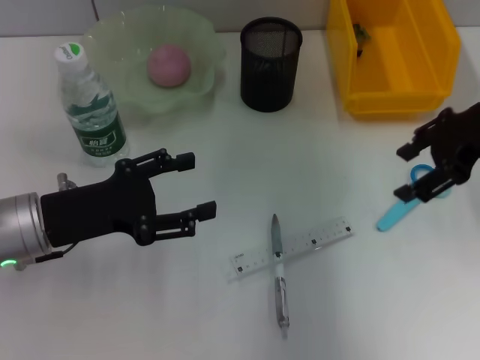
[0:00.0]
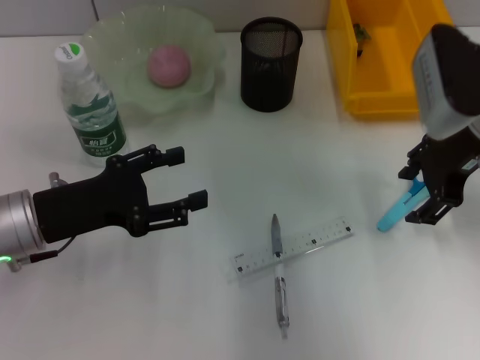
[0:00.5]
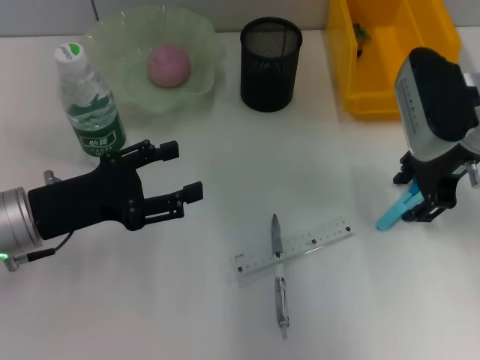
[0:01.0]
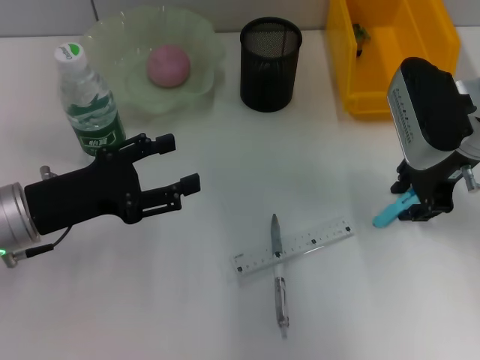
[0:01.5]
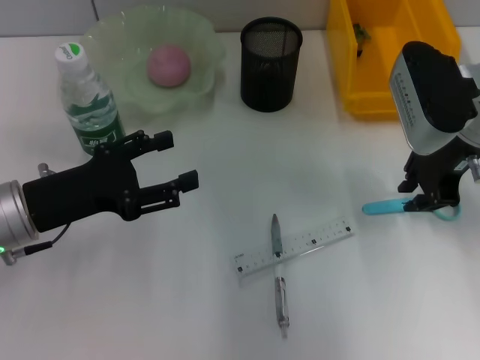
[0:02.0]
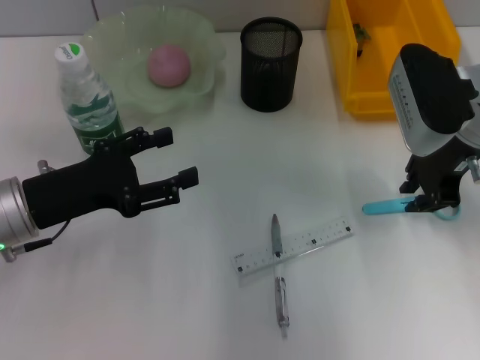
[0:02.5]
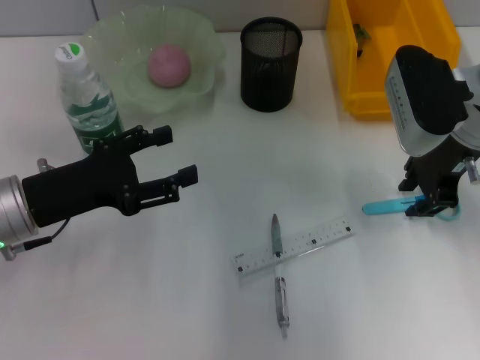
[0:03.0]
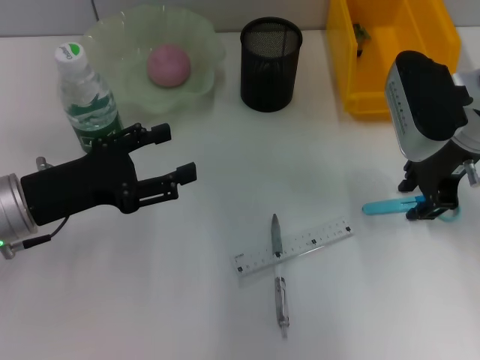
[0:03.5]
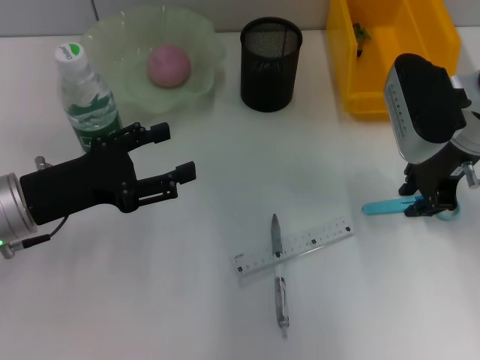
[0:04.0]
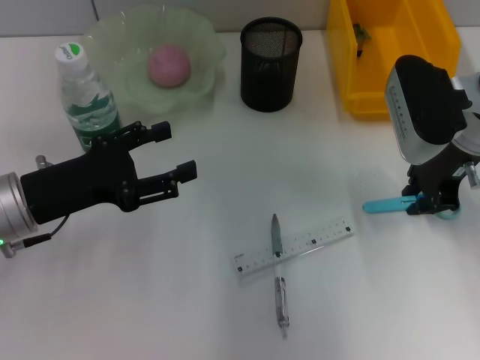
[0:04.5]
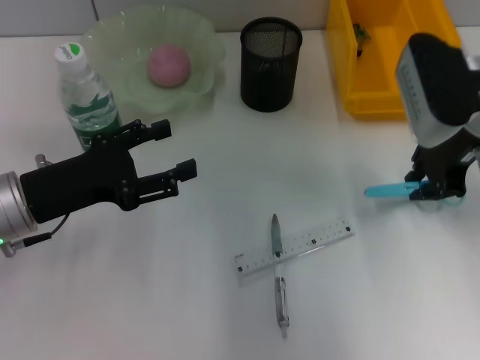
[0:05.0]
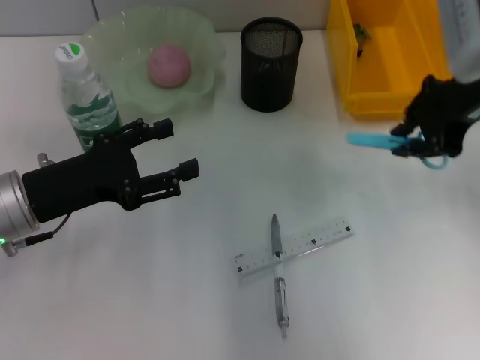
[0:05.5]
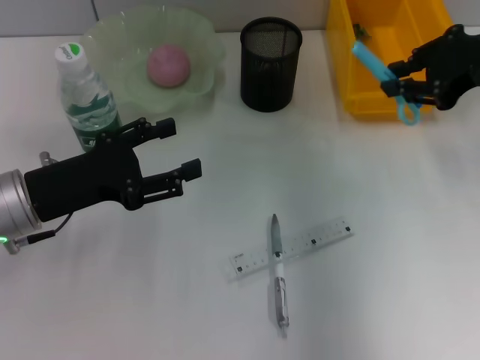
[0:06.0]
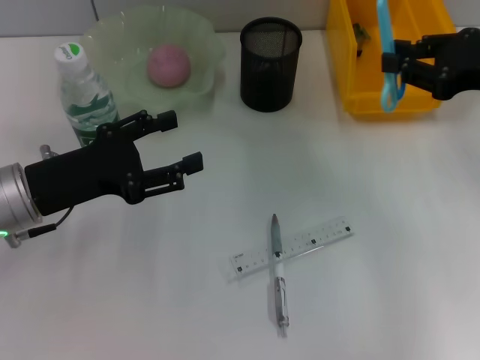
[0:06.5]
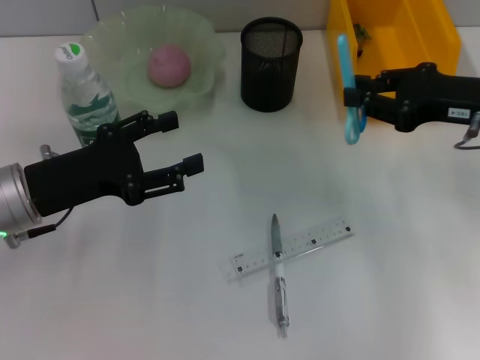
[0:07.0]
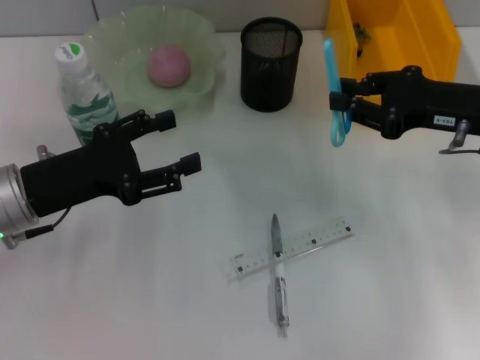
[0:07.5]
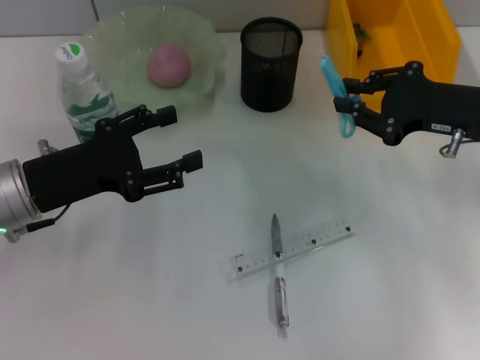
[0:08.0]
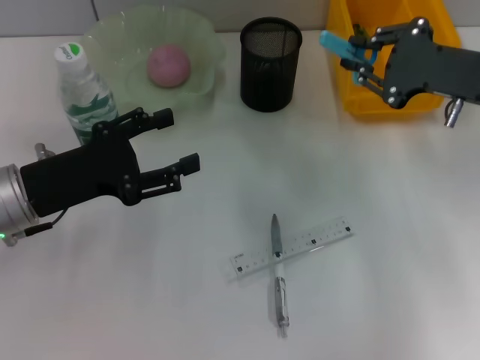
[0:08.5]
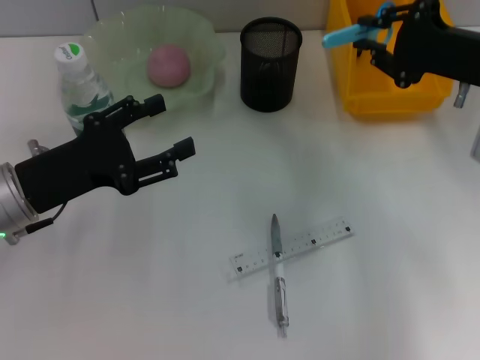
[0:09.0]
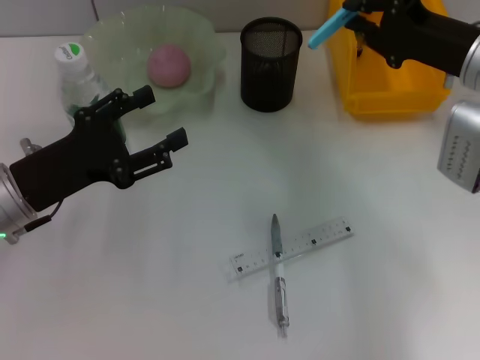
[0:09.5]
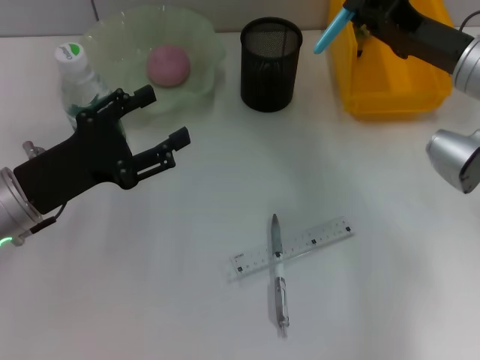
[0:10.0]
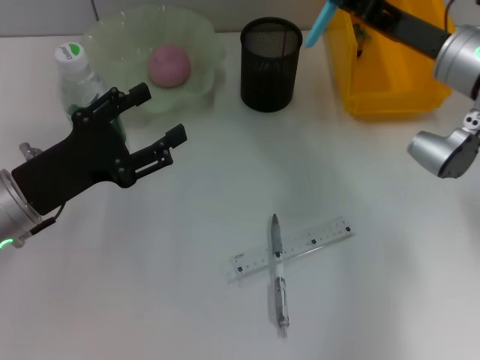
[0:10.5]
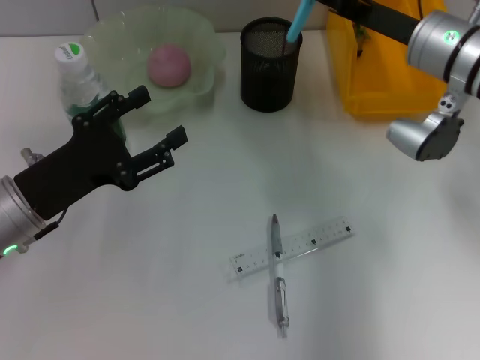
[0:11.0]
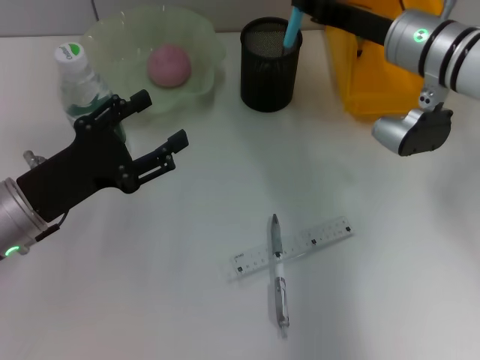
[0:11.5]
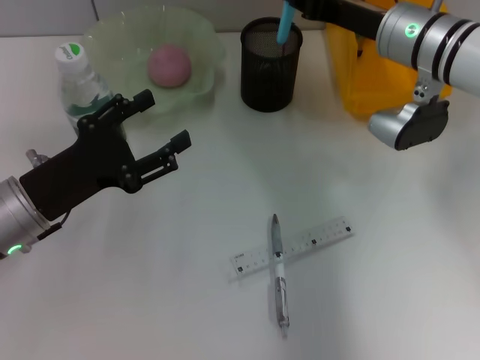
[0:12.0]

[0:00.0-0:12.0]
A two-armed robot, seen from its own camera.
Step, 0.0 to 4.5 s: Grab the blue scissors with the right hand.
0.0 to 2.0 s: The right gripper changes place by about 5 cm, and closes.
2.0 to 4.0 s: Both grippers stay about where they are.
4.0 to 6.0 s: The right gripper goes approximately 10 cm upward and to the right.
6.0 to 8.0 s: The right gripper moves downward, about 10 cm.
10.0 to 12.0 s: The right gripper heads to the left, covering some 5 cm.

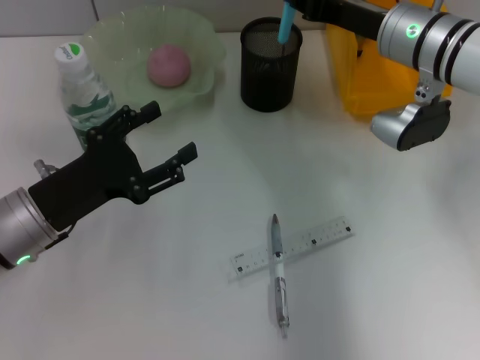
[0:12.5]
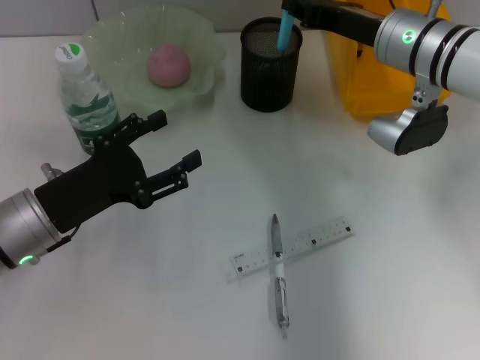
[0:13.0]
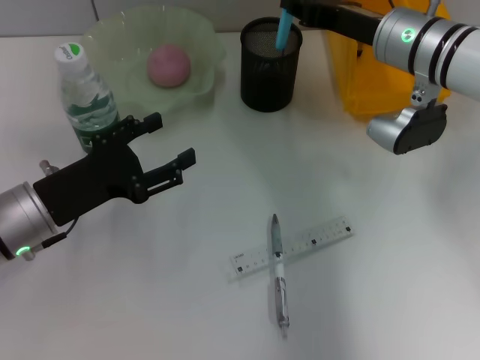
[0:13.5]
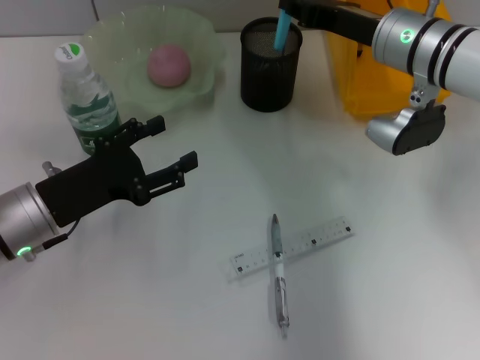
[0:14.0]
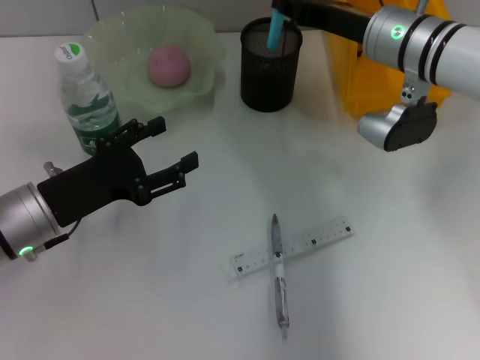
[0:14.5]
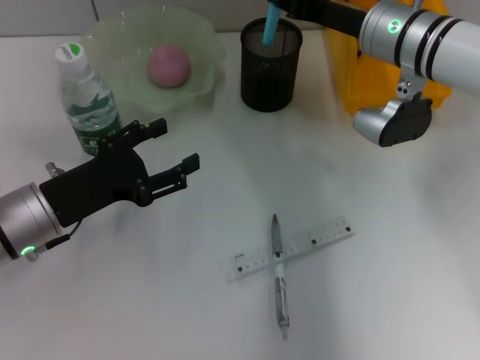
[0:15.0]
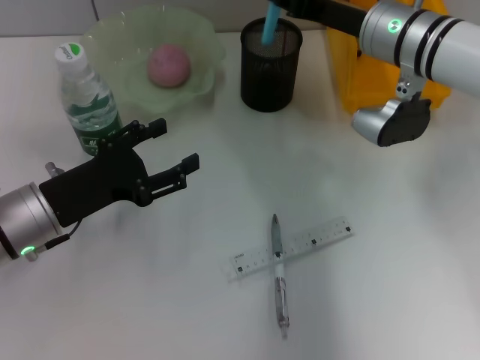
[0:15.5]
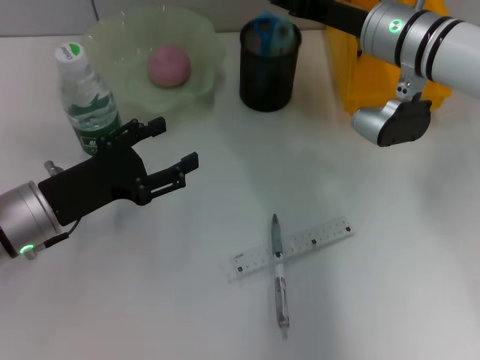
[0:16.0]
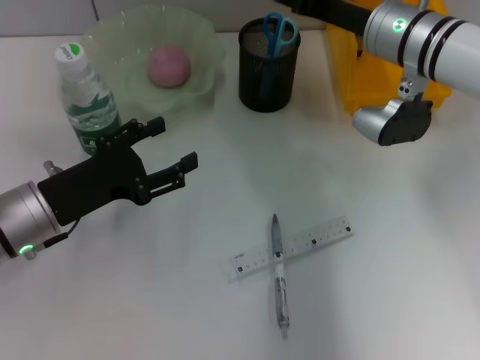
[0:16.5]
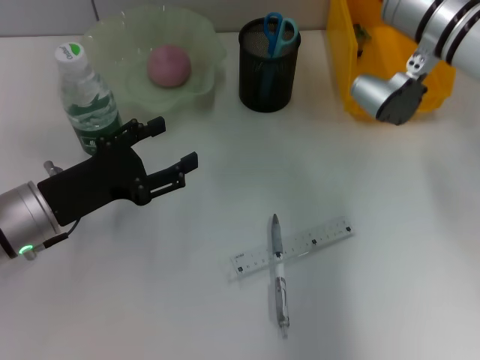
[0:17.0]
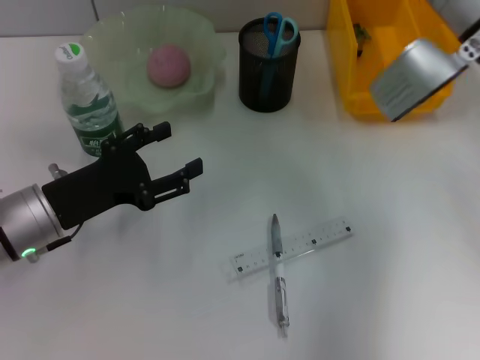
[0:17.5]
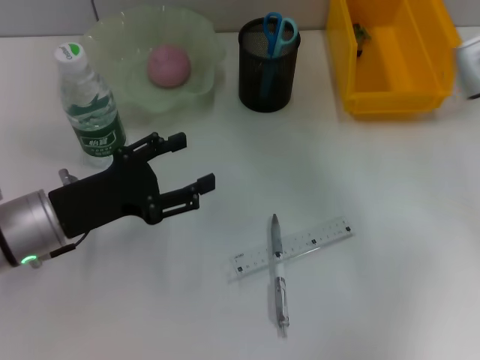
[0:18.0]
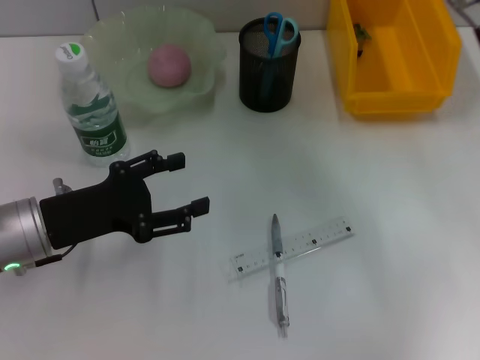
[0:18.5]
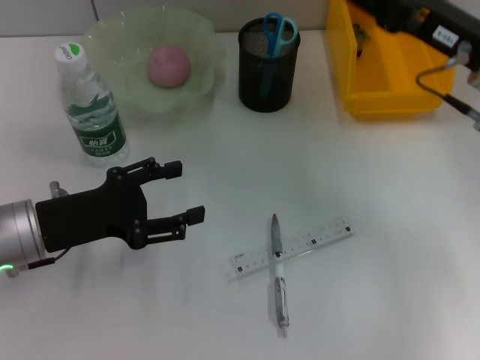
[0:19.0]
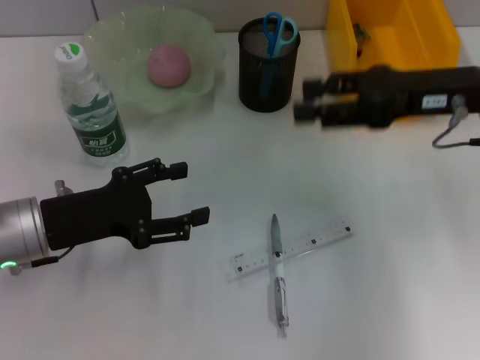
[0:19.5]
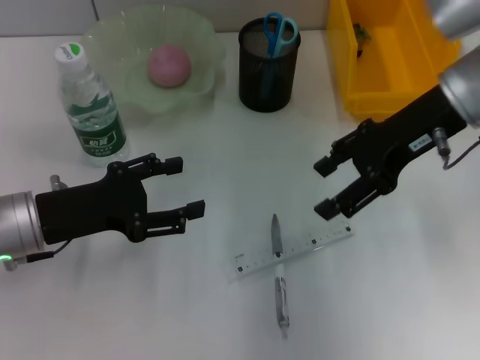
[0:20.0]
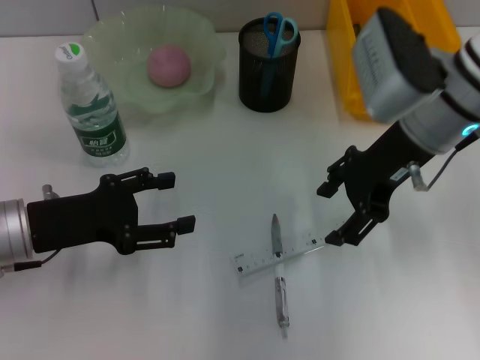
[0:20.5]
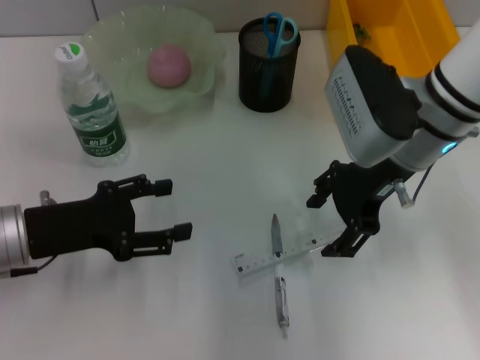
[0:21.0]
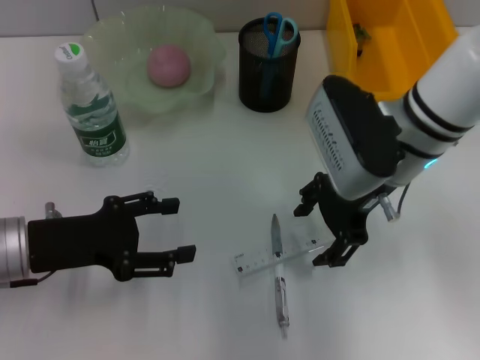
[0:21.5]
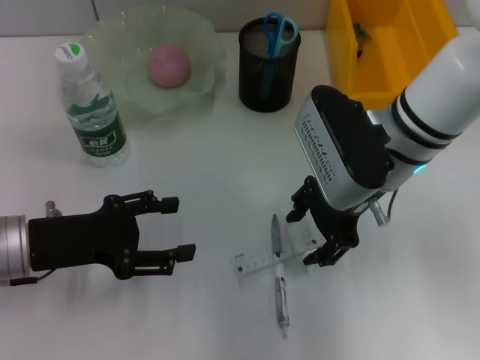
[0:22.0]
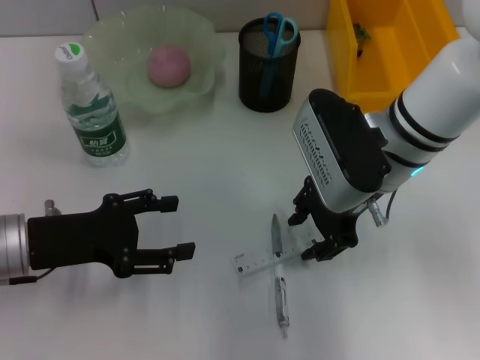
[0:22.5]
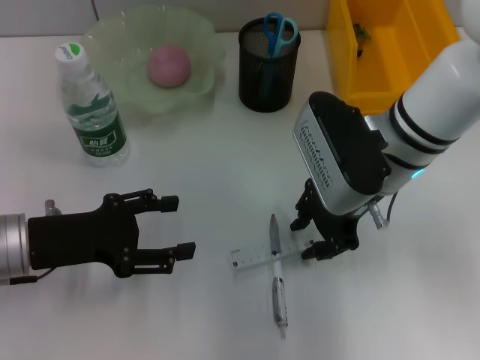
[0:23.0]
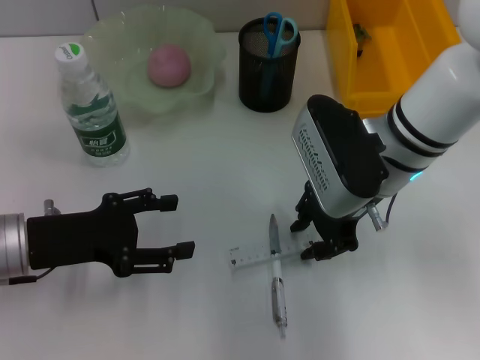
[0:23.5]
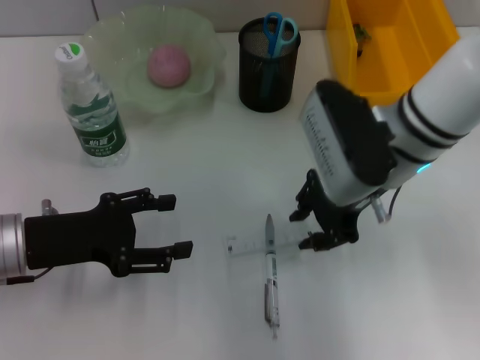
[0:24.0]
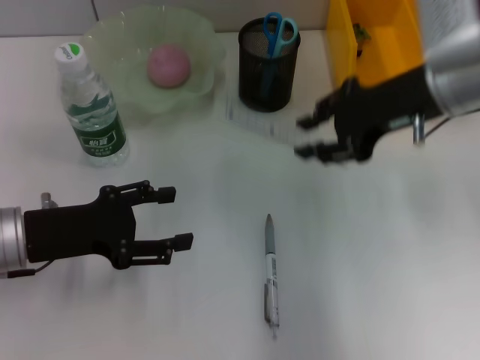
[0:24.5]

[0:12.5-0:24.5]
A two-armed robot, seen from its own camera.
Step, 12.5 to 16.5 s: Place the blue scissors into the pen holder with the right hand.
Step, 17.0 to 23.5 s: Grab the ruler with the right hand.
12.5 to 14.5 s: The grippers move only a little.
14.5 to 16.5 s: Both grippers stay about where they are.
16.5 to 18.5 s: The right gripper heads to the right and backward, covering approximately 10 cm.
18.5 to 20.5 s: The right gripper shifts about 5 cm to the left, and opens its fingers.
20.5 to 22.5 s: The right gripper changes place by about 5 cm, and closes its fingers.
22.5 to 24.5 s: The right gripper shifts roughly 10 cm to the right and upward.

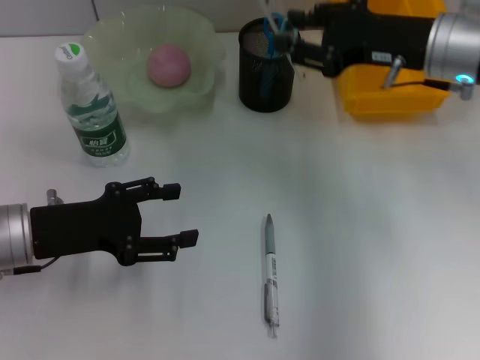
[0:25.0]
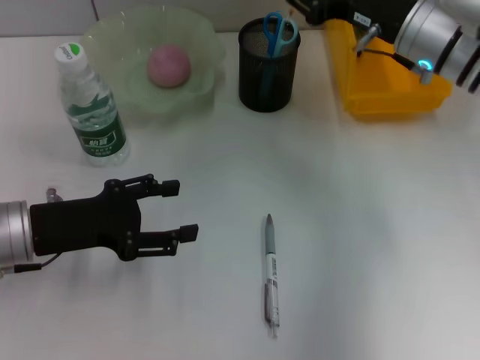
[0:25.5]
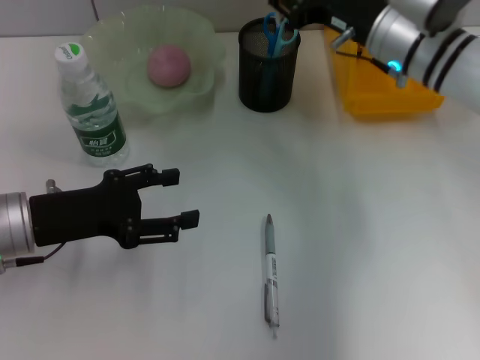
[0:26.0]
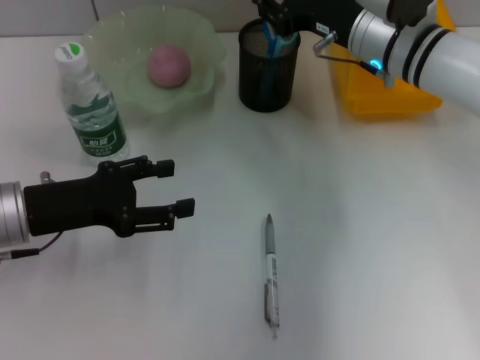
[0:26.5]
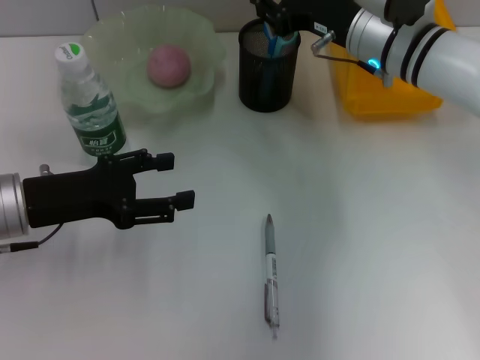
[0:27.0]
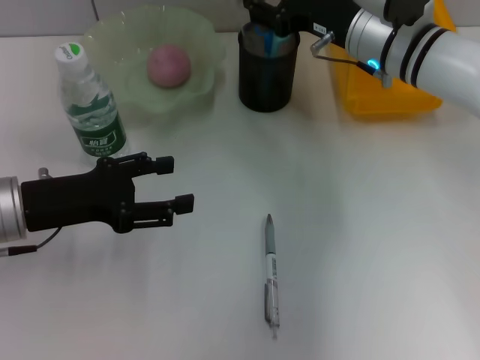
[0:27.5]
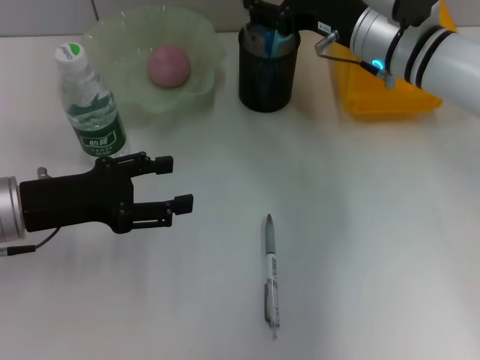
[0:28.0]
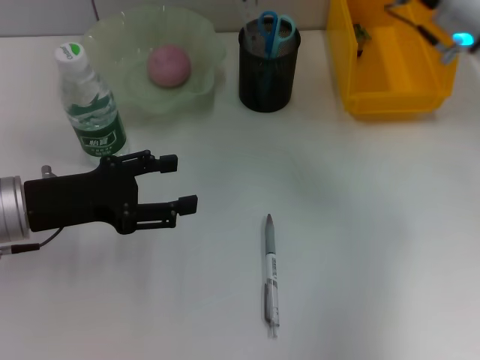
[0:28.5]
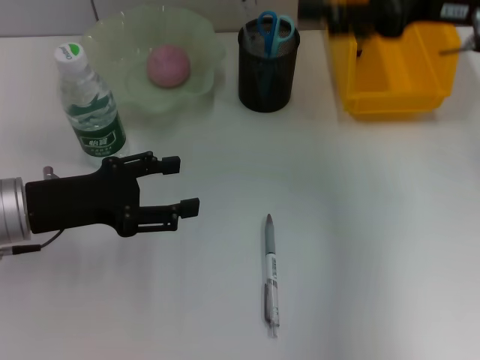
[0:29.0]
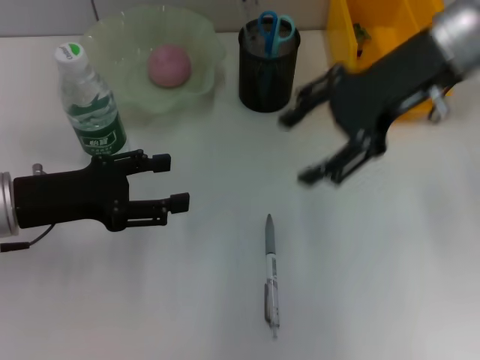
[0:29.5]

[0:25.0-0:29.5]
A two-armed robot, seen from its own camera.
Step, 25.0 to 28.0 s: Place the ruler into the pen holder with the right hand.
25.0 to 27.0 s: The right gripper goes approximately 5 cm to the left.
27.0 to 29.5 s: The right gripper goes roughly 10 cm upward, and opens up.
